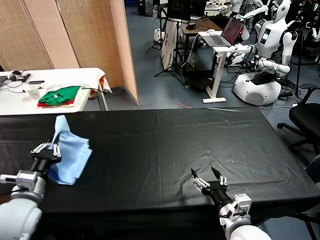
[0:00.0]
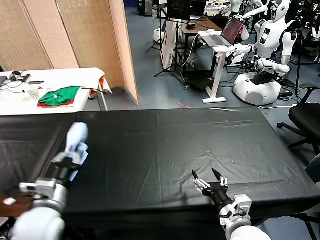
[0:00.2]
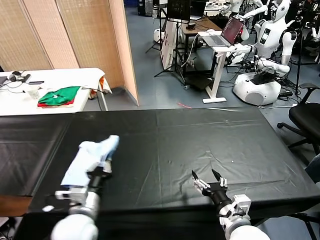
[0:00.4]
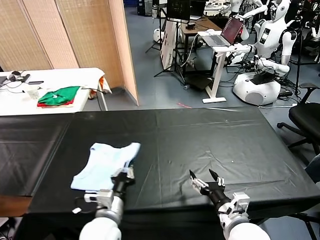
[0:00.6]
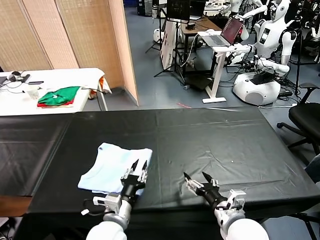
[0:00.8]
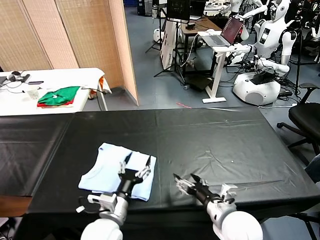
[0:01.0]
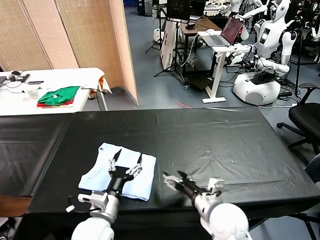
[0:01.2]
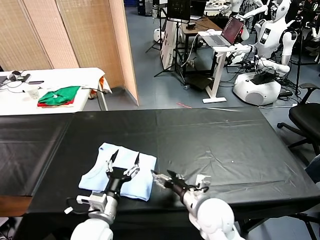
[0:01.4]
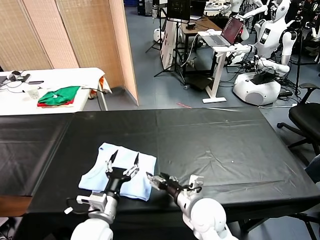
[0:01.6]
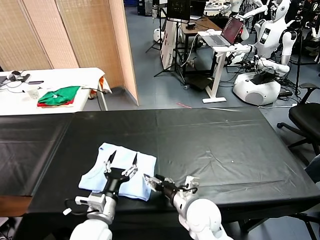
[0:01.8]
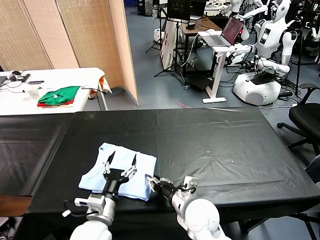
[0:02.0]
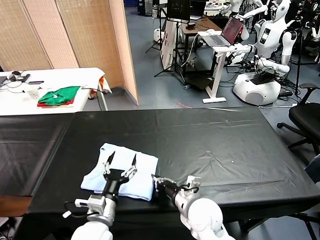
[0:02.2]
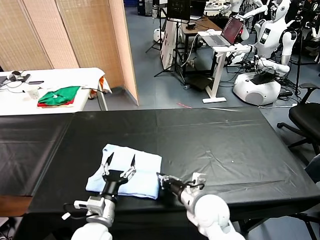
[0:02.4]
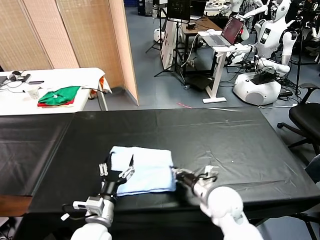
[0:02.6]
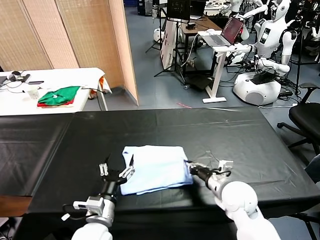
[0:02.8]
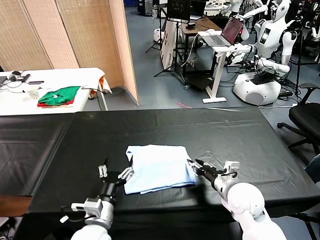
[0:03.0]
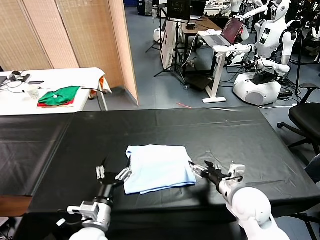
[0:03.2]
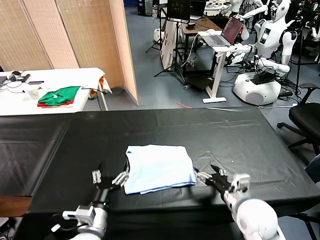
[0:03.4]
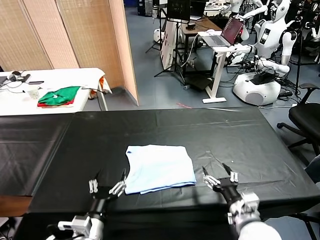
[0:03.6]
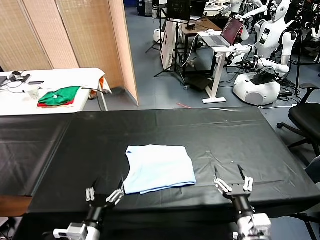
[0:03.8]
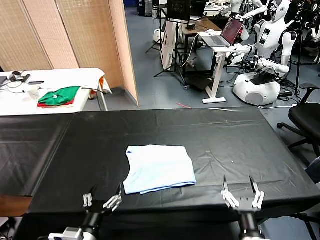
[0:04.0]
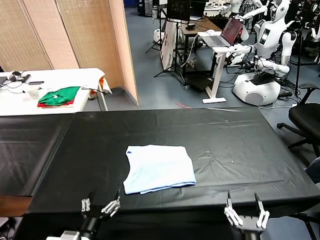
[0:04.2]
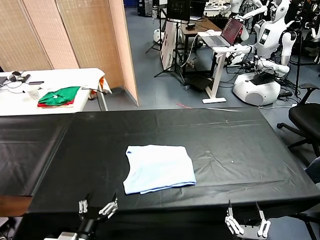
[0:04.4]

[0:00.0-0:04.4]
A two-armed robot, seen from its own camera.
Task of the whole recording: fold and organize the clothes.
Step, 0:01.0 to 0:03.0: Drag the clothes to the center of the table.
0:00.0 to 0:01.4: The left gripper heads to the right, covering roughly 20 cm, and opens its fingers; the right gripper shifts some 10 cm forward and to the left.
0:01.4 to 0:03.0: The right gripper is displaced to the right by roughly 10 cm, and closes up.
0:03.0 to 0:04.4: The right gripper is displaced backward by approximately 25 cm, and opens up. Meanwhile the left gripper is displaced backward by approximately 10 cm.

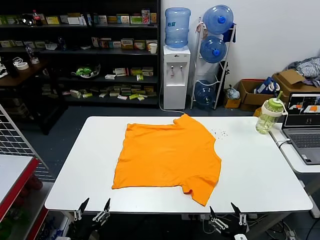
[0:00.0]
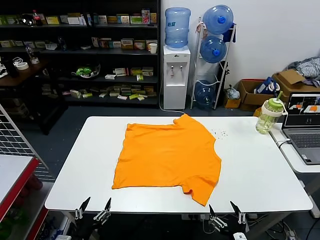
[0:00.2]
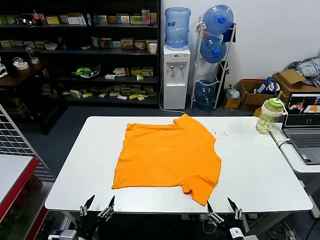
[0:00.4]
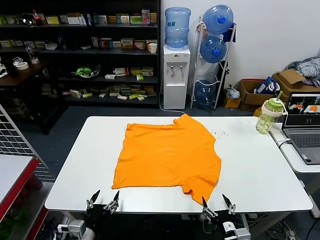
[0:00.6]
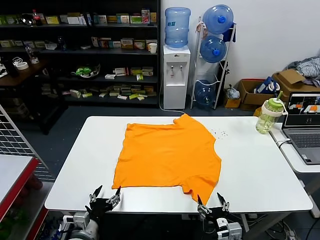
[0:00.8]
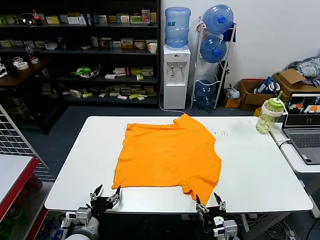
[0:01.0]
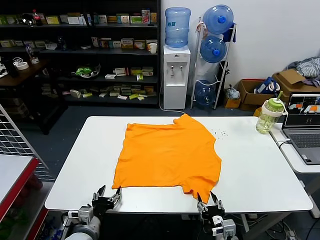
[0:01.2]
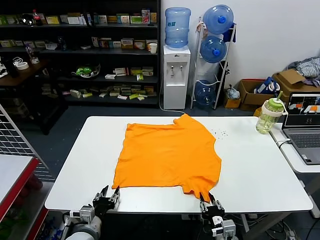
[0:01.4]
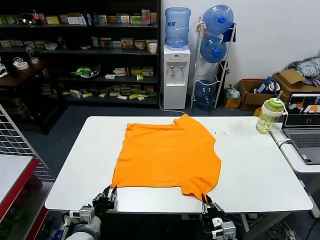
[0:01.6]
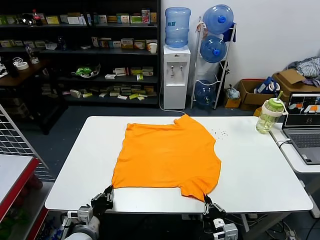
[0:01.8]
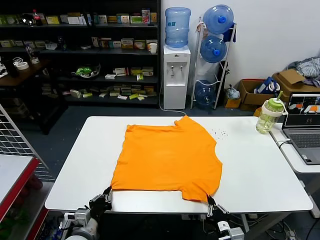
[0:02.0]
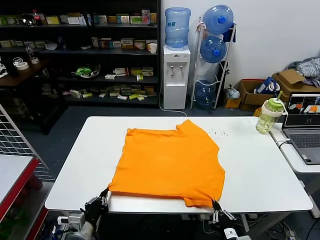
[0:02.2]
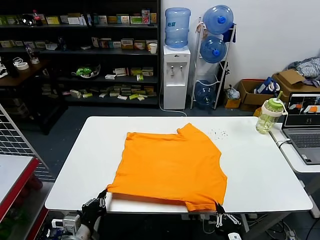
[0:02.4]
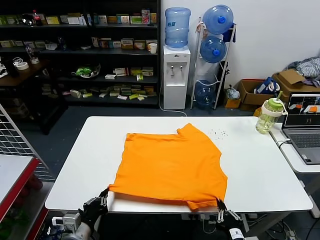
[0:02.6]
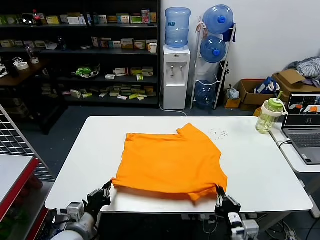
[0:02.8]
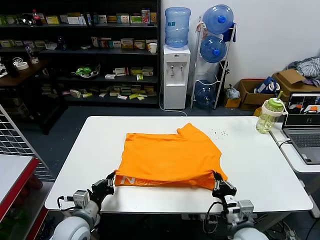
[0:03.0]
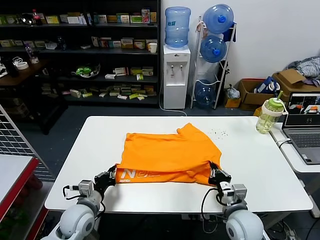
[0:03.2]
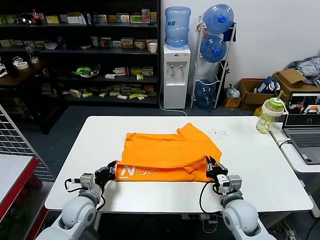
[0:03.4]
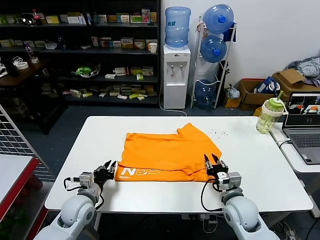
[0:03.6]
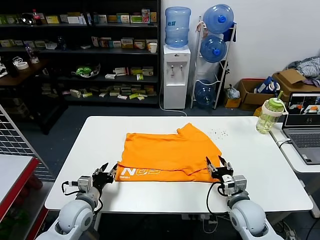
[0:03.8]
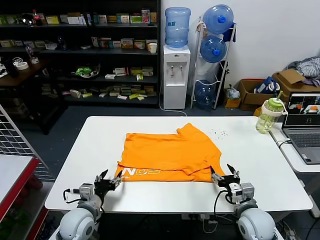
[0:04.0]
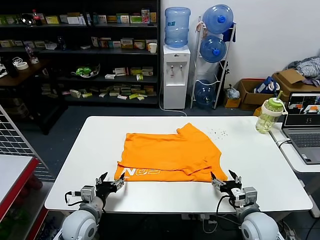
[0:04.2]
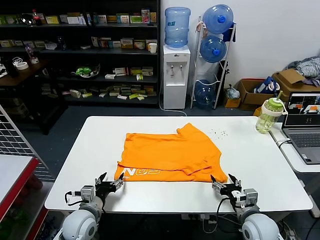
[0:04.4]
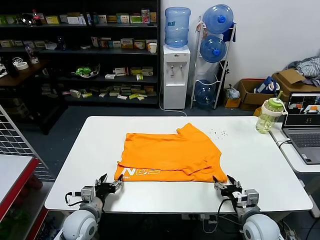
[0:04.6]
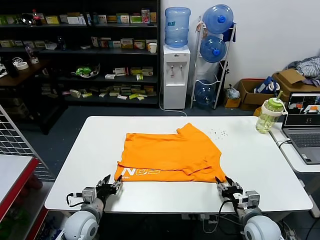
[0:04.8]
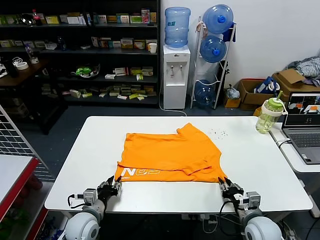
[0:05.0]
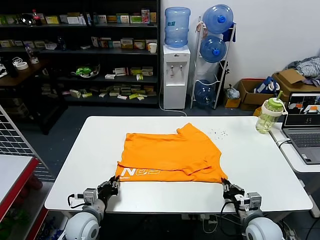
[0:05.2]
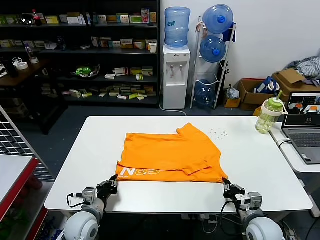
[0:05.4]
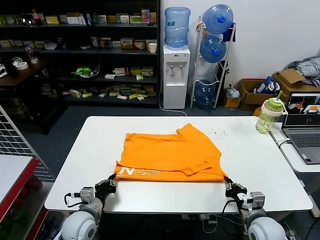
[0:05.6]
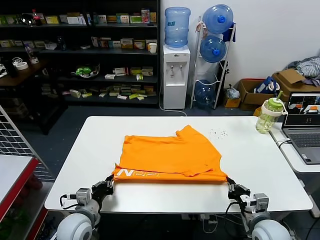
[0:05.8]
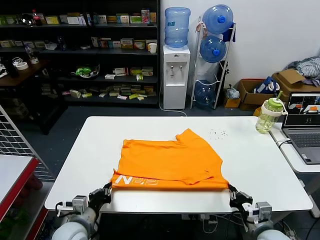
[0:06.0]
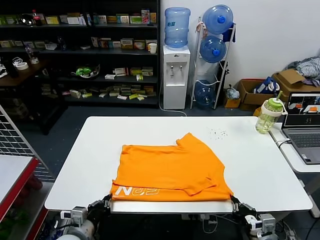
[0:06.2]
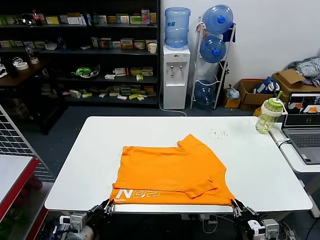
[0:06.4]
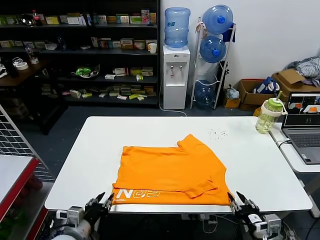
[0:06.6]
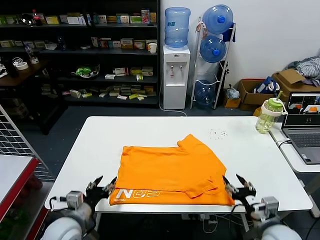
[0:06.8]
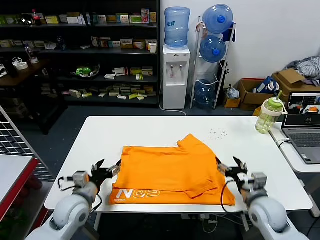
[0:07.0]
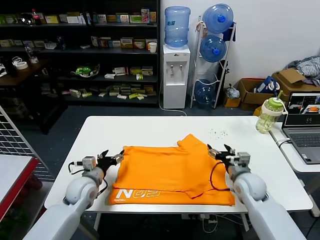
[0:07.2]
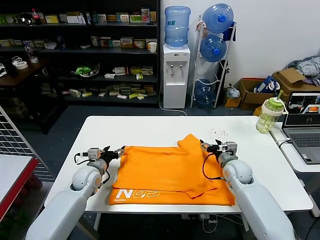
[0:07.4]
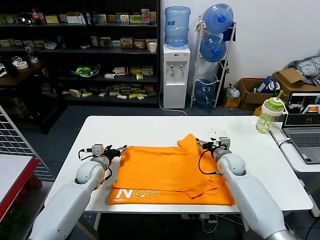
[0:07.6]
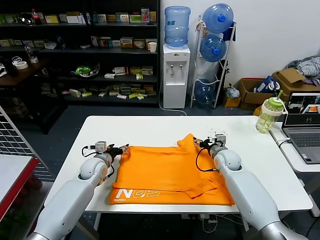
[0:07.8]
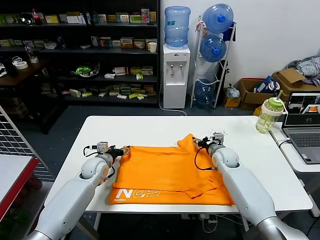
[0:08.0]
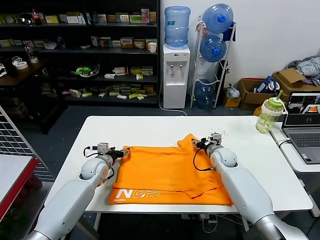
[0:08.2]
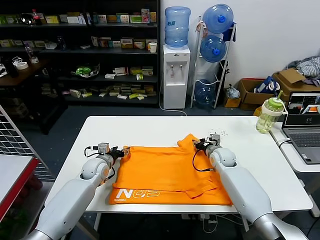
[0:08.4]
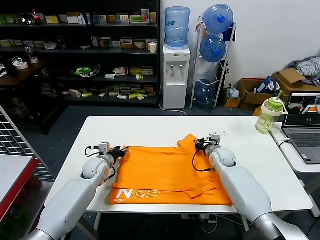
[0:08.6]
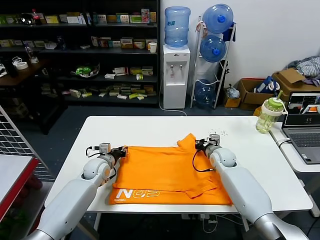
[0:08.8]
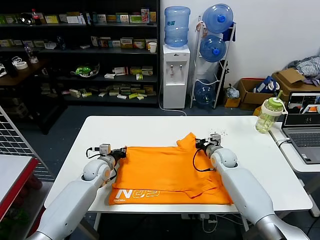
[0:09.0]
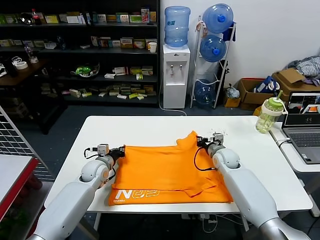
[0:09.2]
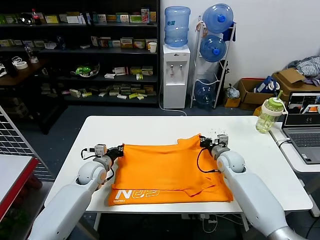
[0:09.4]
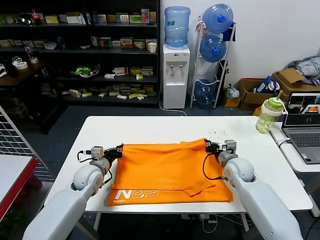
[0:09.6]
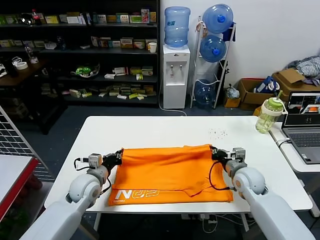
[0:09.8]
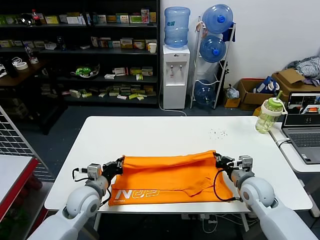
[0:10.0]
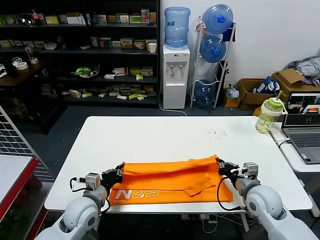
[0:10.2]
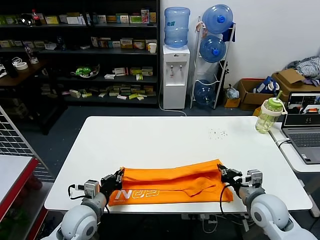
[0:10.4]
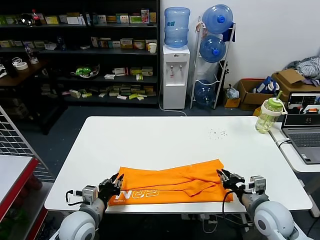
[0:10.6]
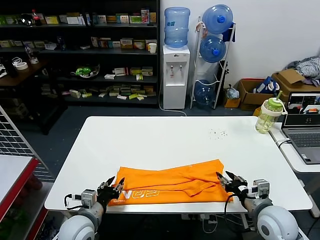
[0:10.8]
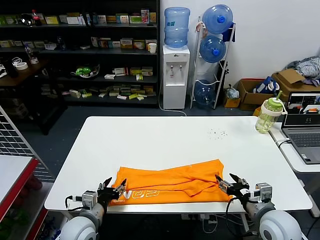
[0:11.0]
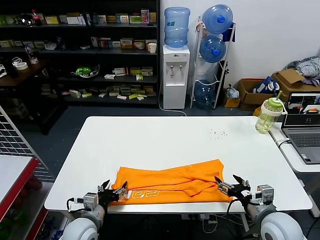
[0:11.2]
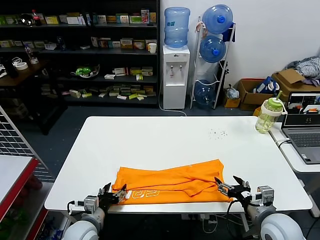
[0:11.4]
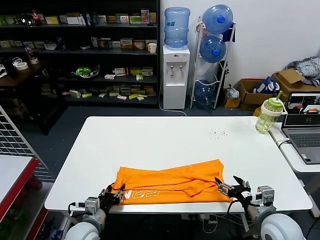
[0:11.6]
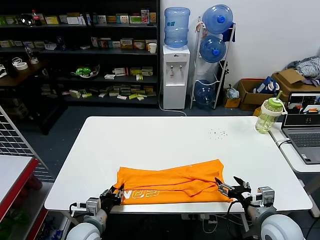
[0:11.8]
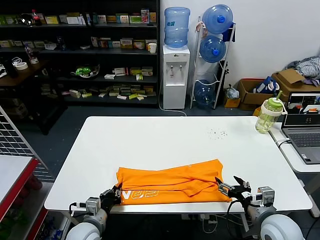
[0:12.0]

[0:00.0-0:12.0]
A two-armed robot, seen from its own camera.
Task of the whole recording: fold and organize the clothes.
Step, 0:00.0 to 0:01.8: use both grippers simultaneously to clamp the lower edge of the clothing fabric.
Step, 0:02.0 to 0:03.4: use both grippers to drag the lower edge of the fabric forward and fold it over the upper edge.
Step, 0:03.6 to 0:06.4: Drag the clothes downward with both gripper.
Step, 0:06.6 to 0:09.0: use both grippers simultaneously to clamp the upper edge of the clothing fabric.
Step, 0:09.2 to 0:10.4: use both grippers to drag the upper edge of the fabric backward and fold it over the lower edge.
Step, 0:10.8 to 0:12.0: use the left gripper to clamp the left edge of the fabric.
0:01.6 to 0:03.0: Both grippers travel together upward, about 5 cm. The left gripper closes its fingers.
0:03.0 to 0:04.4: The left gripper opens its fingers. Meanwhile the right gripper heads to the right, covering roughly 5 cm, and opens.
0:04.4 to 0:06.0: The left gripper closes. The right gripper shifts by some 5 cm, and closes.
0:06.0 to 0:07.6: The grippers both shift forward by some 25 cm. The left gripper opens up; the right gripper opens its fingers.
0:07.6 to 0:09.0: The left gripper closes, while the right gripper closes.
0:09.0 to 0:10.4: Both grippers move backward, some 20 cm.
0:10.4 to 0:12.0: The left gripper heads downward, covering about 5 cm, and opens, then closes once more; the right gripper goes some 5 cm backward, and opens up.

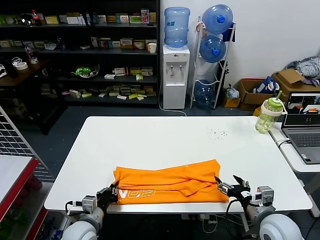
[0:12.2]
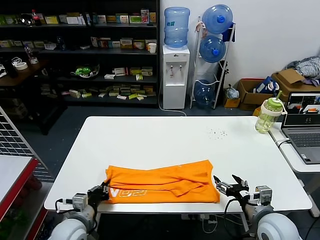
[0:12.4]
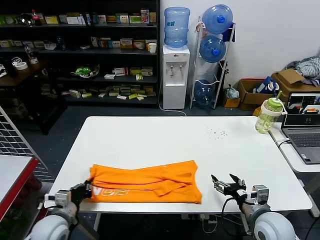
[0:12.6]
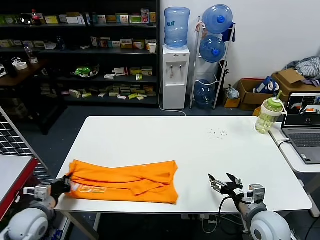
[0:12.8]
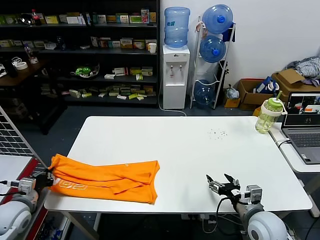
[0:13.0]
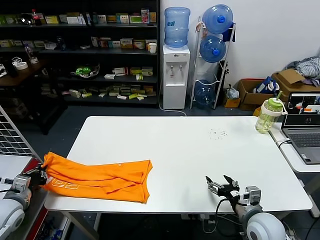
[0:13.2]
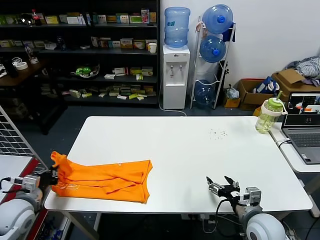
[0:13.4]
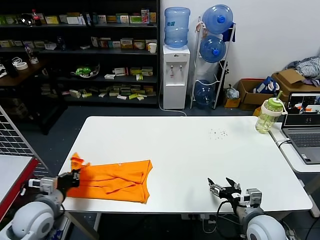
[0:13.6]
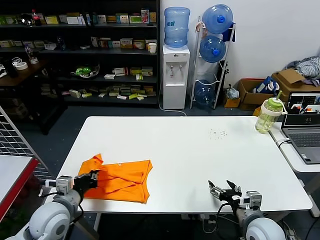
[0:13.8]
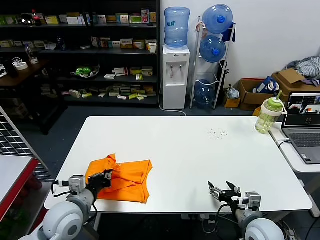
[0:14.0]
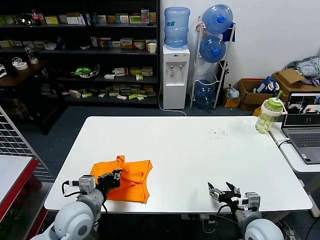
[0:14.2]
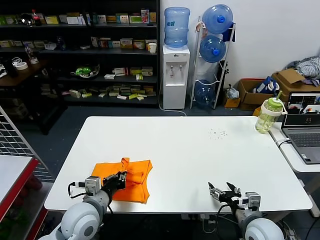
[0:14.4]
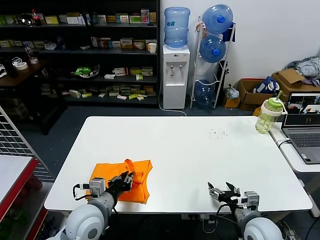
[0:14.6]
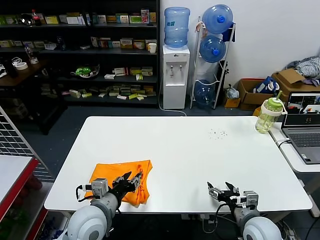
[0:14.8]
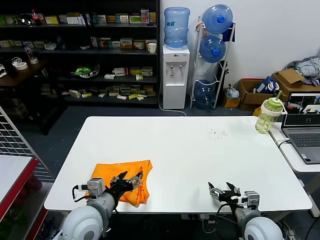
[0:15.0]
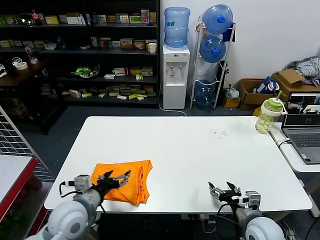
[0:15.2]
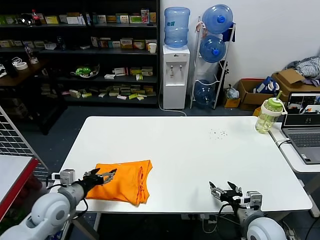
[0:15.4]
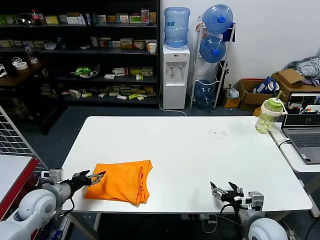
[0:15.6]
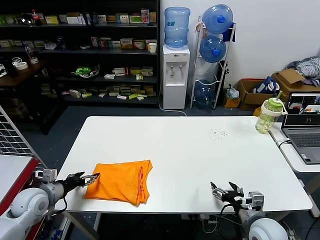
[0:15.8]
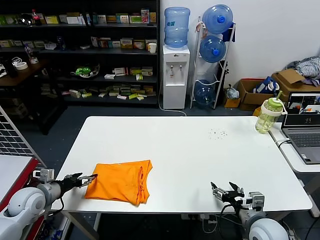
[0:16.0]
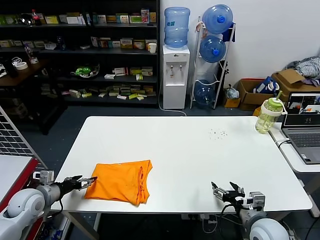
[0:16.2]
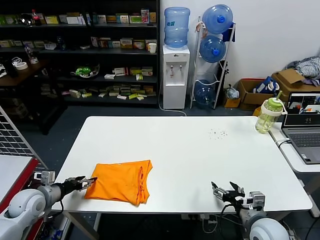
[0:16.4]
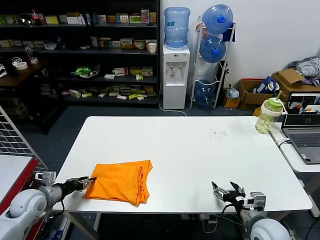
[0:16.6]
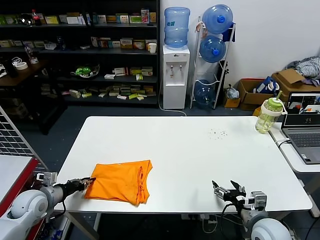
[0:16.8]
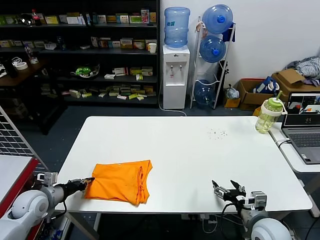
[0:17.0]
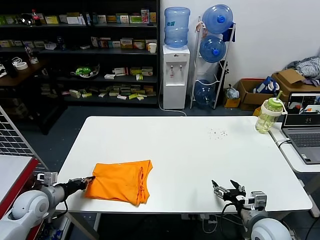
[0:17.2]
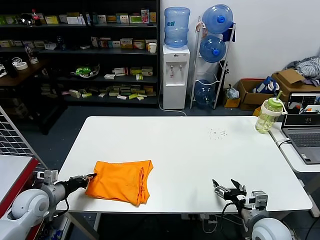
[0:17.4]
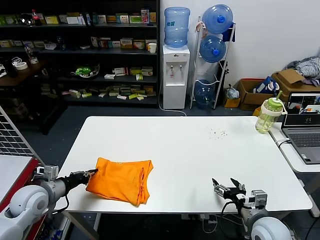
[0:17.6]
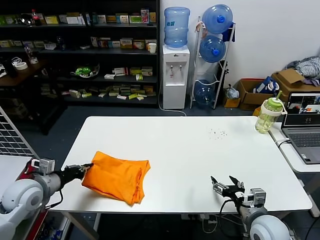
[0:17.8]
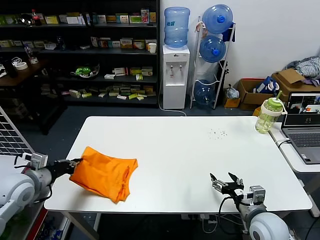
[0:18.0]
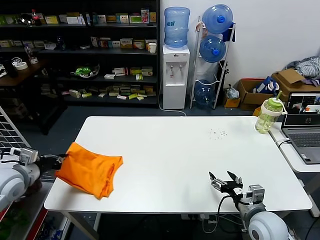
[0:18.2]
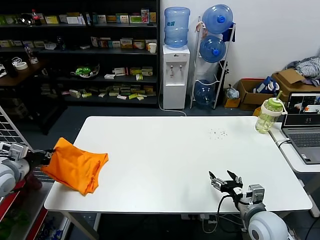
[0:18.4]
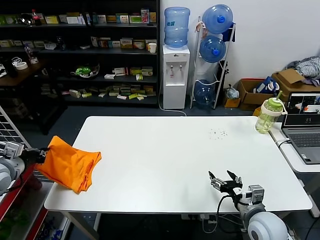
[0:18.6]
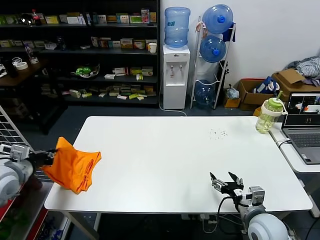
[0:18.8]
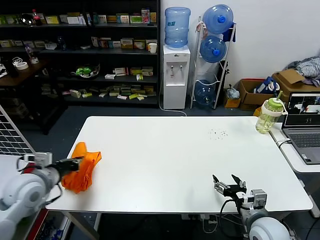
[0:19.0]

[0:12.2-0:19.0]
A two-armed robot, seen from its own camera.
Task of the whole recording: fold and organize the clothes.
Step, 0:12.2 to 0:14.6: use the left gripper to drag the left edge of the fabric to the left and folds it over the right edge.
0:12.2 to 0:13.6: The left gripper travels to the left and upward by roughly 15 cm.
0:13.6 to 0:15.0: The left gripper shifts roughly 20 cm to the right, and opens up.
0:15.0 to 0:16.2: The left gripper goes some 25 cm to the left.
0:16.2 to 0:17.6: The left gripper closes.
0:17.6 to 0:19.0: The left gripper moves upward, about 10 cm.
